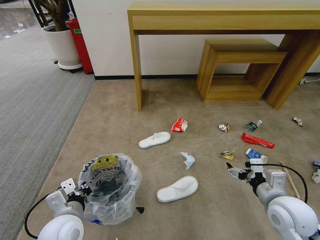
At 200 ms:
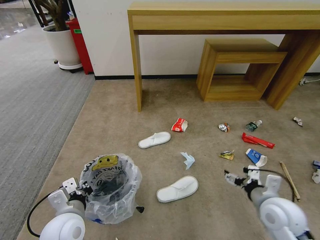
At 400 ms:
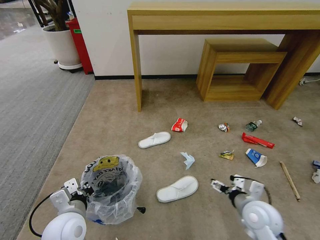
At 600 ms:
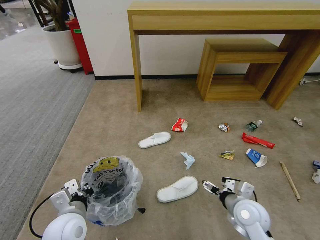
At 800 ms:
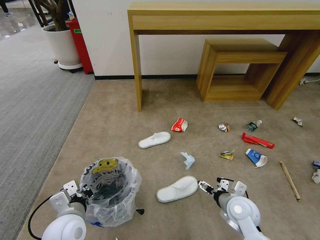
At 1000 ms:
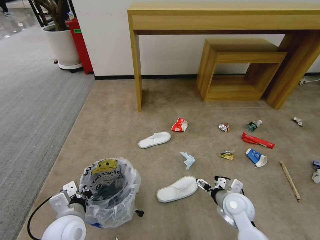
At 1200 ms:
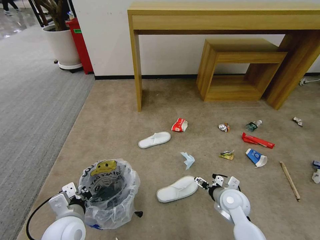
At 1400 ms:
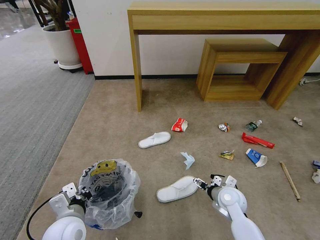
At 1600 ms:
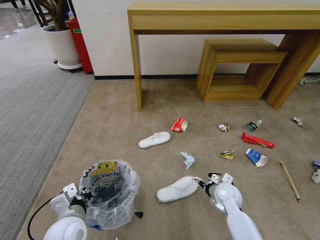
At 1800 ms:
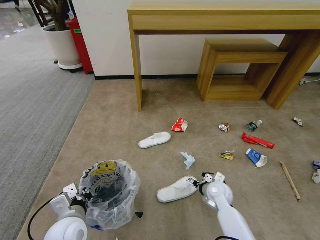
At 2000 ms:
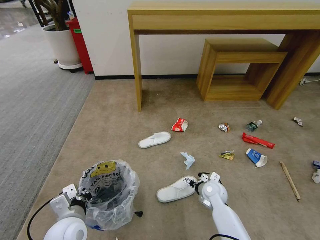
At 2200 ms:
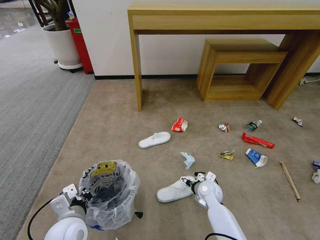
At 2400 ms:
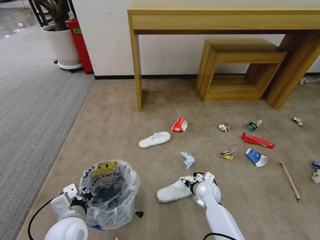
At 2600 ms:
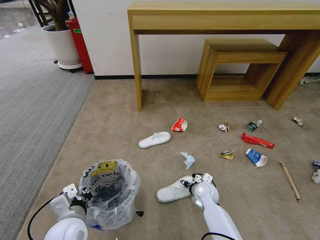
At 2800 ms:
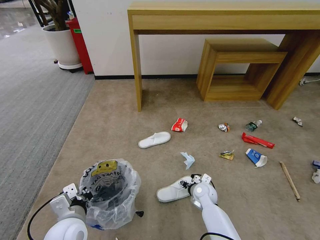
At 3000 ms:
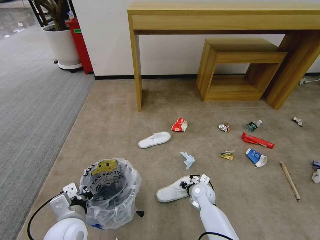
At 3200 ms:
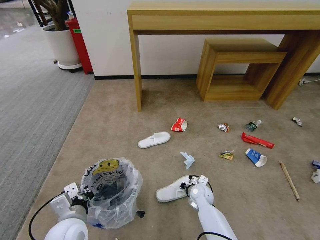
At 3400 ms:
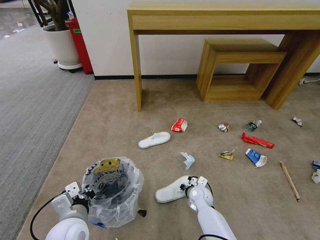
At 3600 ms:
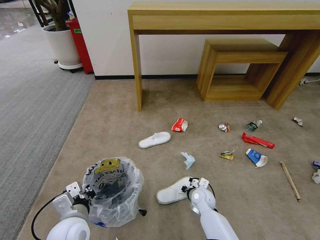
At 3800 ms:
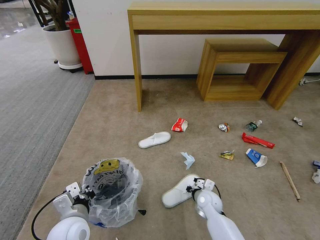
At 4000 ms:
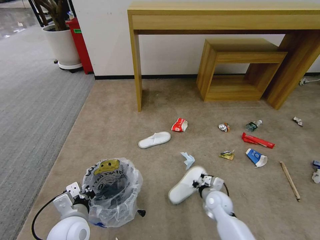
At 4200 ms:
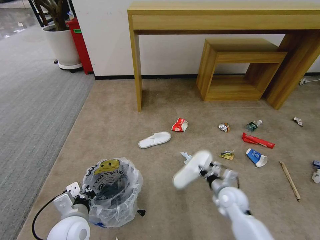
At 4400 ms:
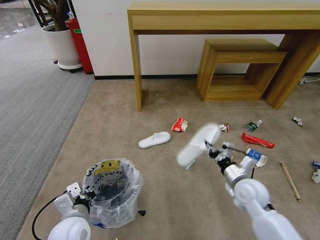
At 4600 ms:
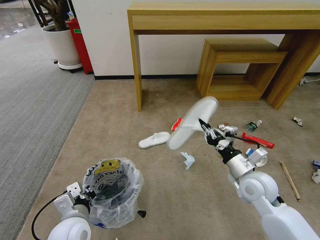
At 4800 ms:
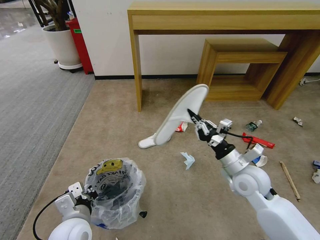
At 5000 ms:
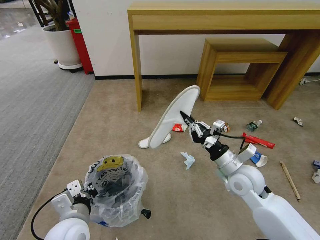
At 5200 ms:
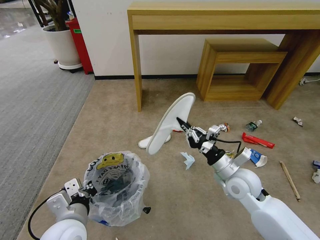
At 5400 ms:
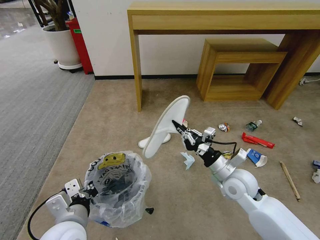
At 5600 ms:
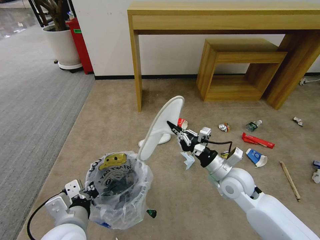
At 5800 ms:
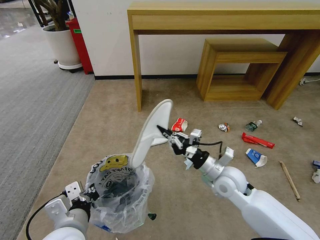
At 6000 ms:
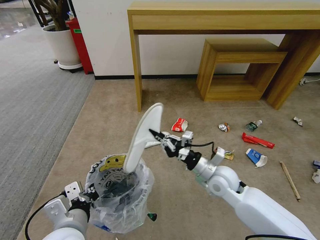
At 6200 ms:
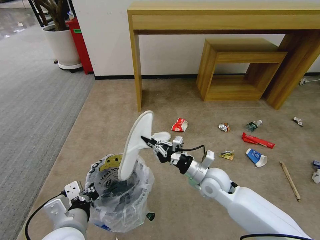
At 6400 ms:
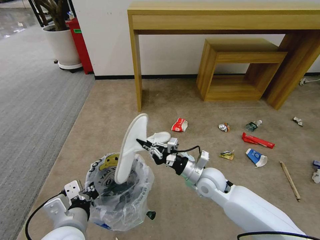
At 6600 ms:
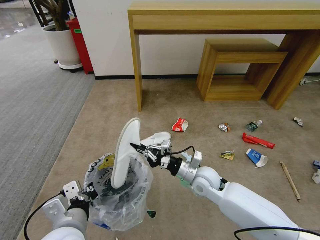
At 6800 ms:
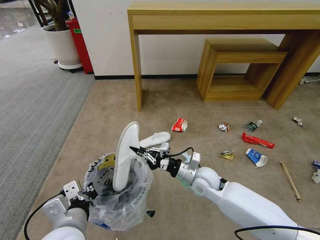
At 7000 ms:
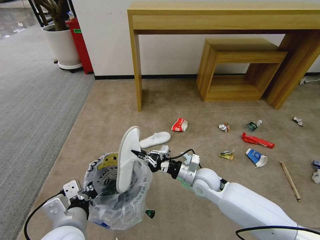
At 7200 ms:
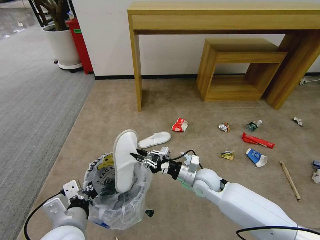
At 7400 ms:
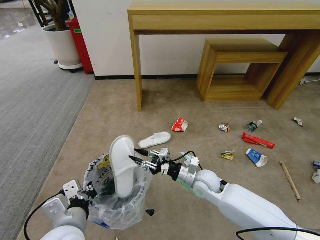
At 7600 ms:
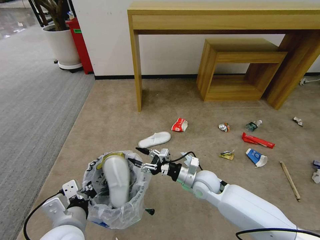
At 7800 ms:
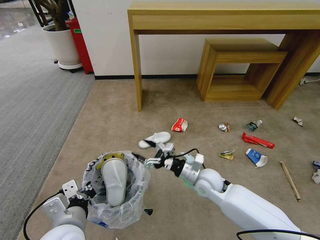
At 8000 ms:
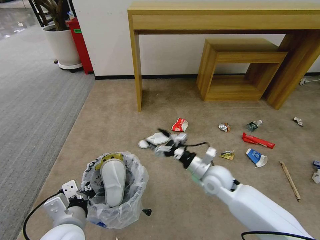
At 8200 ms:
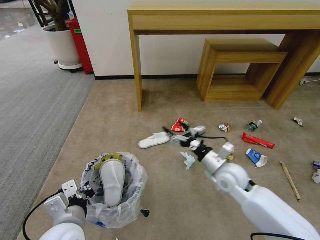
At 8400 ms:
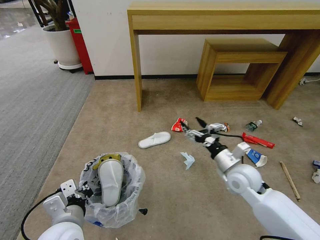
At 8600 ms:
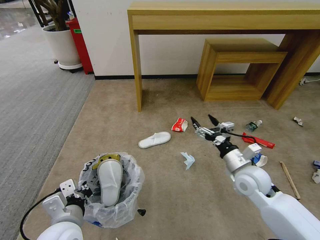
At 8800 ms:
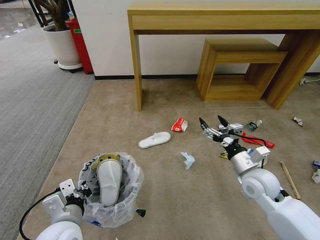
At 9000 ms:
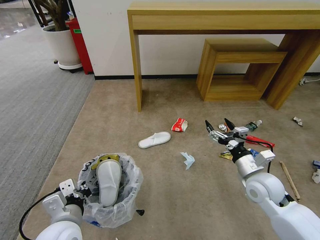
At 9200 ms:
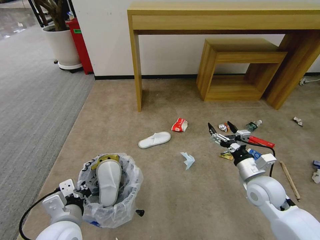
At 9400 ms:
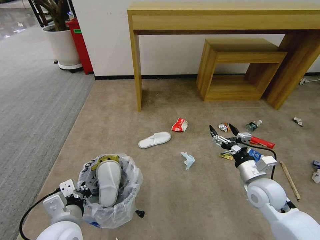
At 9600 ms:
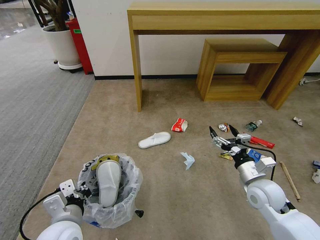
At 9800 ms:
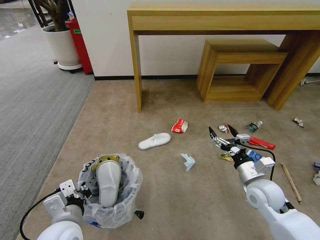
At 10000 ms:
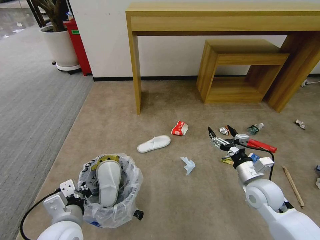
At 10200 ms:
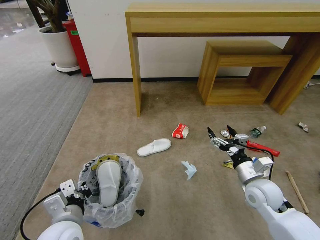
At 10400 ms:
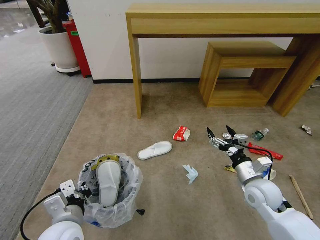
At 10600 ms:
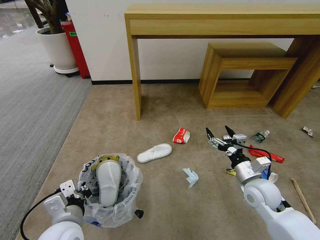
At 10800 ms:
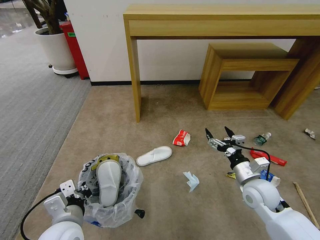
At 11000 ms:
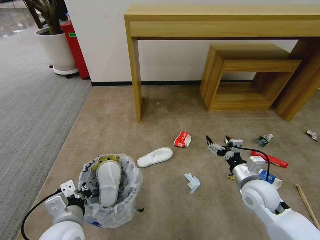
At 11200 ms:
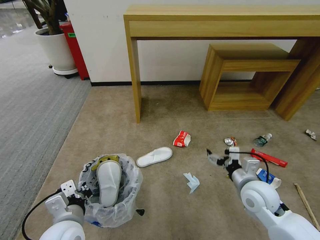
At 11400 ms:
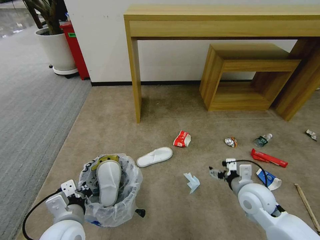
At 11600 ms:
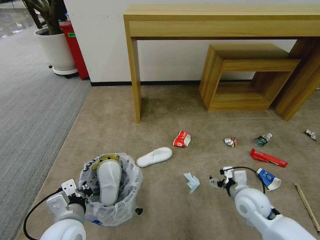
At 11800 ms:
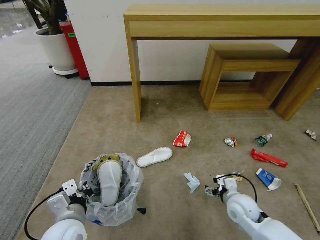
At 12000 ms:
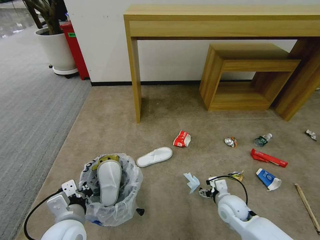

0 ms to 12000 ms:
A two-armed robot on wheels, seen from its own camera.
Task of the whole recording: Pick up the trash bin and place the garbage on the floor into it.
0 ms to 1600 ms: The right gripper heads downward, forward and to the left, covering some 20 cm.
1600 ms to 3000 ms: The right gripper is displaced to the left and downward by approximately 10 cm, and closes its fingers.
3000 ms to 4400 ms: The right gripper travels upward and to the right by about 20 cm, and closes up.
4400 ms to 6000 ms: The right gripper goes some 10 cm to the left; the left gripper goes some 5 cm upward.
6000 ms to 7600 ms: The right gripper is displaced downward by approximately 5 cm, and opens up.
7600 ms to 9000 ms: The right gripper moves to the right and upward, approximately 15 cm.
9000 ms to 10400 ms: The grippers stay close to where they were, moving slightly.
10400 ms to 12000 ms: The right gripper moves downward and to the left, approximately 10 cm.

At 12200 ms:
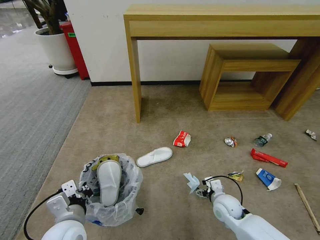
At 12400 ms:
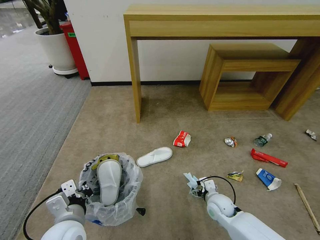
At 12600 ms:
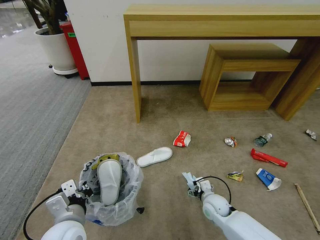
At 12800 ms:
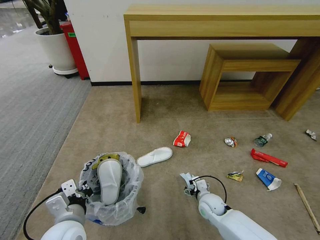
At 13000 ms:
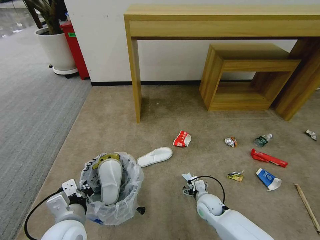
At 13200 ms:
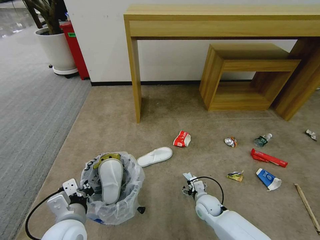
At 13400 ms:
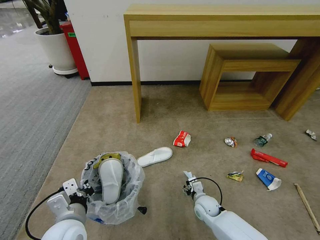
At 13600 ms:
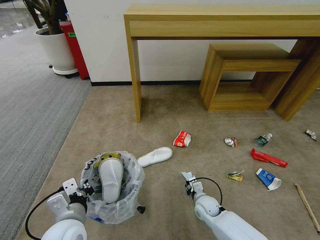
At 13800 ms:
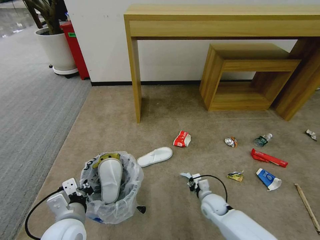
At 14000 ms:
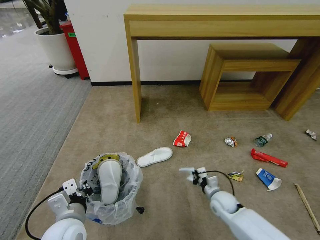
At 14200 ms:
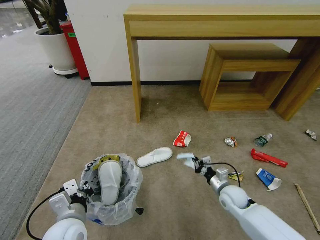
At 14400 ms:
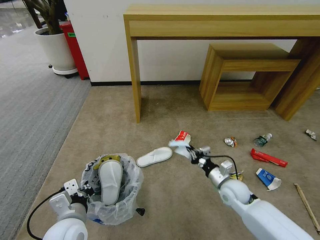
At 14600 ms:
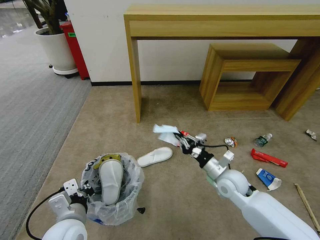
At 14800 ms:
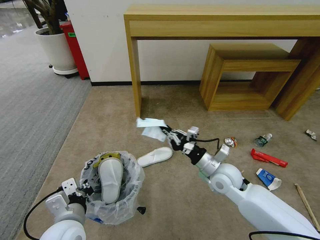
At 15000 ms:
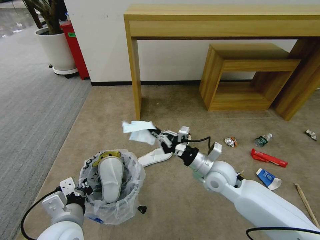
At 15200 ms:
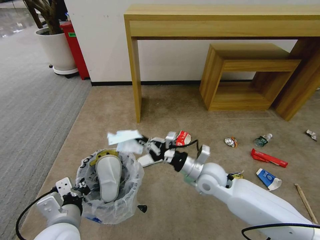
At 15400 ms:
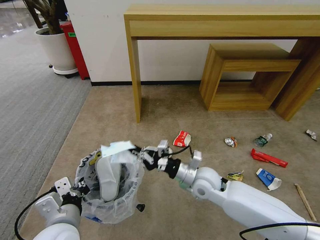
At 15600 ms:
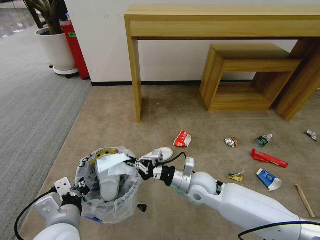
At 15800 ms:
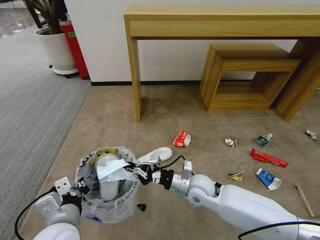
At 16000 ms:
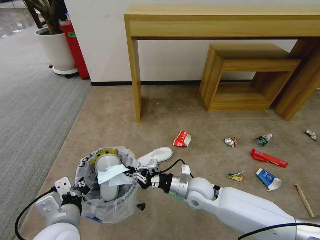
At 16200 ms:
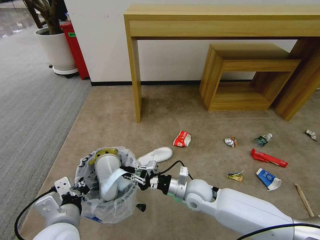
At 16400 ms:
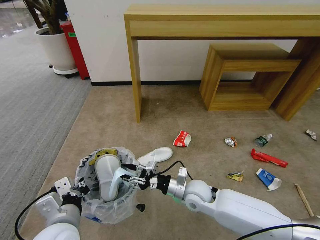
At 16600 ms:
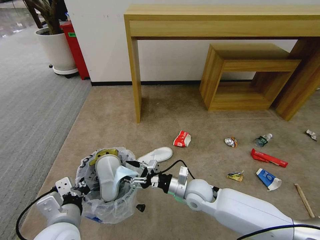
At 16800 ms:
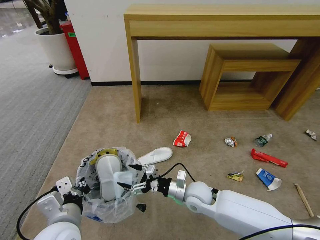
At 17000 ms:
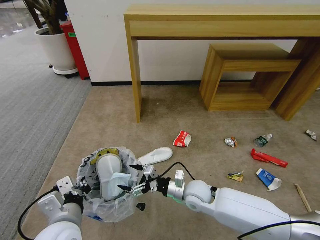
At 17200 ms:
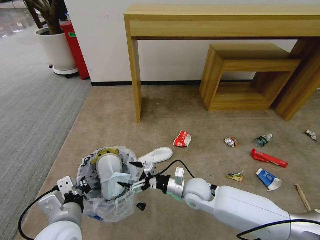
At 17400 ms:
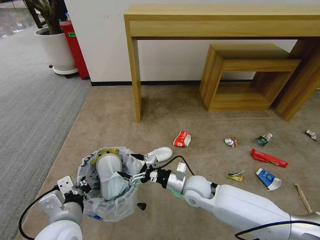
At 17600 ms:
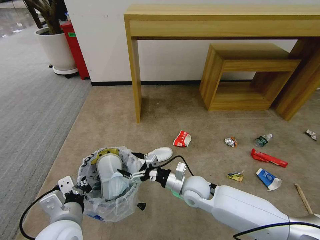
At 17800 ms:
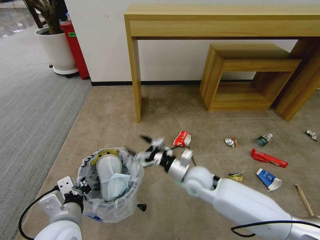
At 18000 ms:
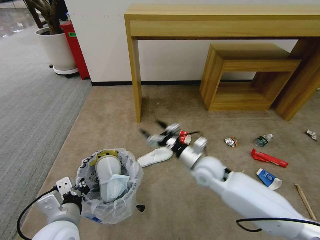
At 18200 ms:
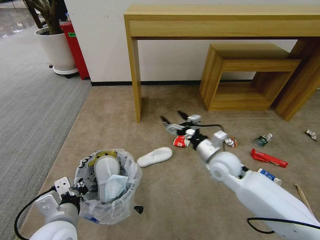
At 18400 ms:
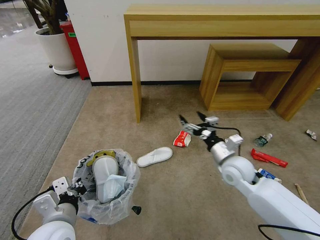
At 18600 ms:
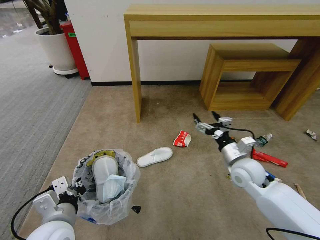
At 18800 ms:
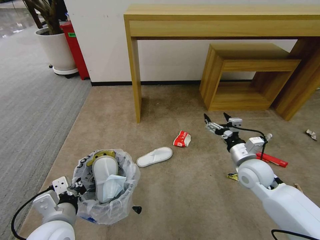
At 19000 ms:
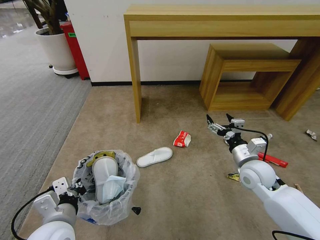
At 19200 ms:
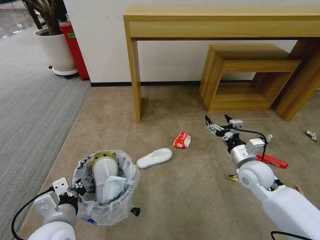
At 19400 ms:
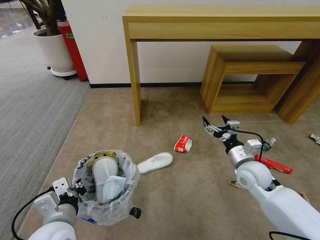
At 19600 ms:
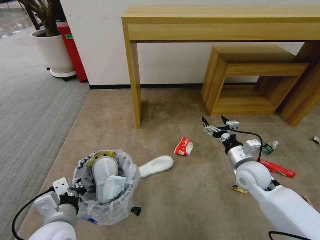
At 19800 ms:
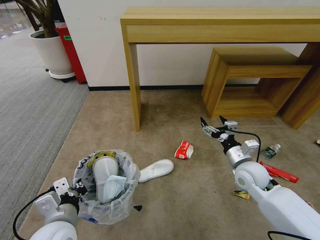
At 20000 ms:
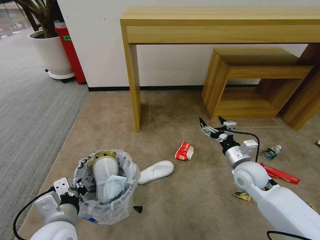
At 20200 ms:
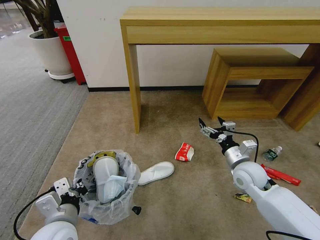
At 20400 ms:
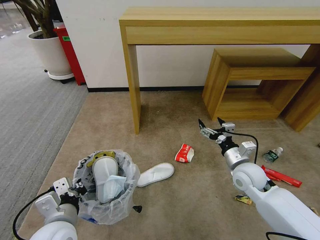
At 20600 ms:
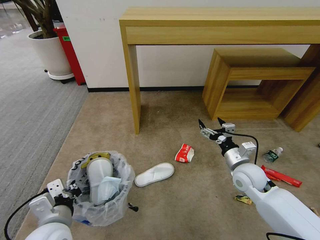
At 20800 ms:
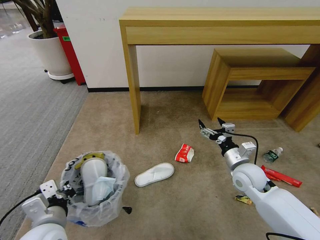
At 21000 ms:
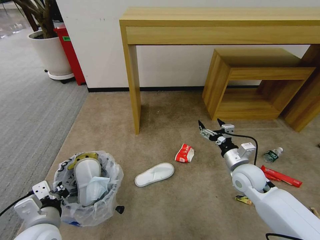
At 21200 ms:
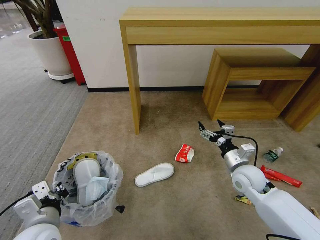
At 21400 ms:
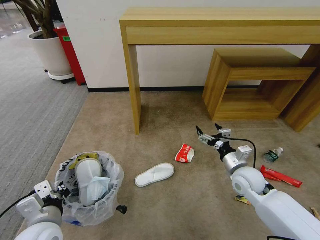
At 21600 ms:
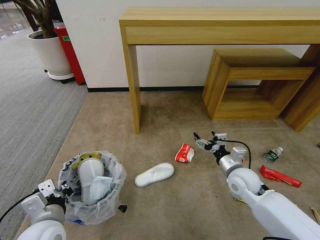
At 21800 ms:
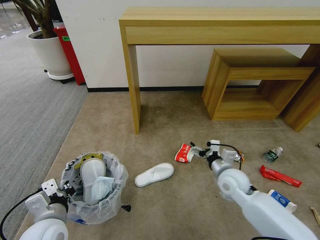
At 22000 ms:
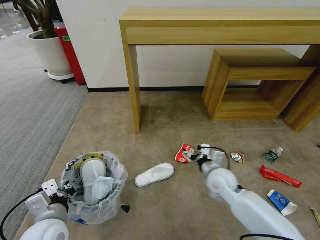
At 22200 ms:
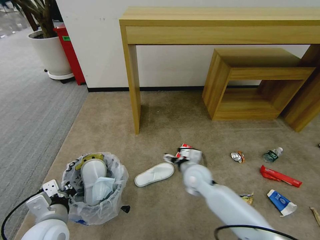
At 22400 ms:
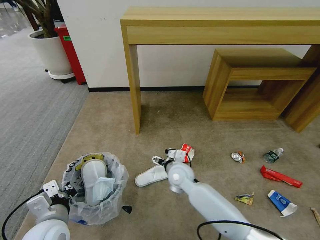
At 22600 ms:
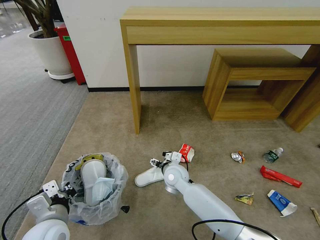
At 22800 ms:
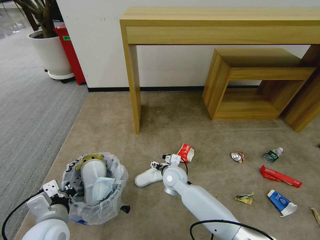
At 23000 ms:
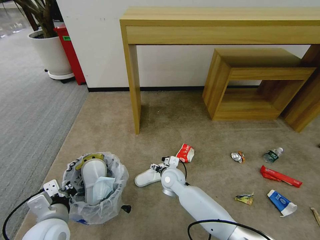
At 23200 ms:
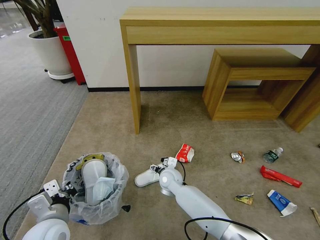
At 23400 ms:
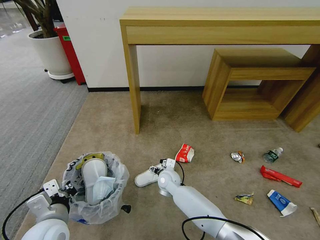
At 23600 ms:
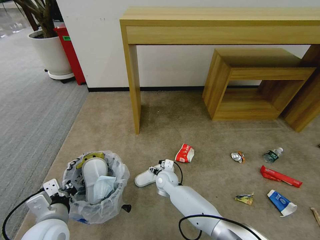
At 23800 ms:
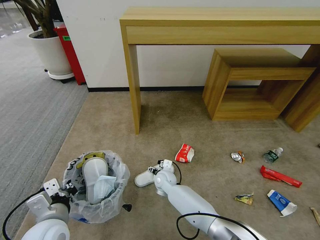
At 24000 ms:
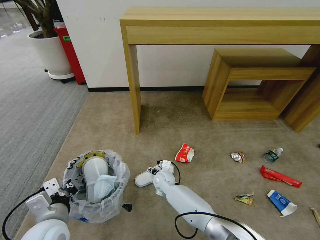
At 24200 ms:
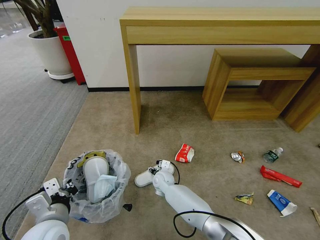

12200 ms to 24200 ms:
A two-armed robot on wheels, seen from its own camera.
Task of the whole recording: Pick up the trash bin and place the garbage on the floor into it.
12200 ms to 13800 ms: The right gripper heads downward, covering roughly 5 cm, and closes.
13800 ms to 15200 ms: The right gripper moves upward, some 20 cm.
15200 ms to 16600 ms: The right gripper is displaced downward by about 10 cm, and opens up.
16600 ms to 18200 ms: The right gripper heads upward, to the right and forward, covering roughly 15 cm.
18200 ms to 19800 ms: The right gripper moves to the right, roughly 10 cm.
19800 ms to 21200 ms: The grippers move only a little.
21200 ms to 22600 ms: The right gripper goes roughly 25 cm to the left.
22600 ms to 24200 ms: The right gripper heads downward, covering approximately 10 cm.
